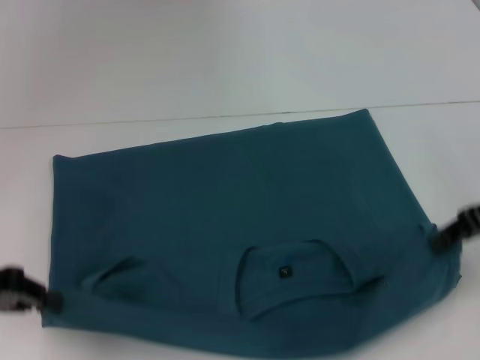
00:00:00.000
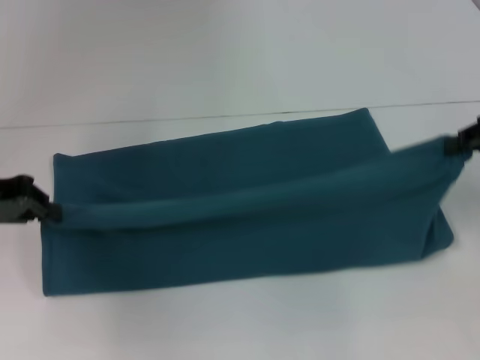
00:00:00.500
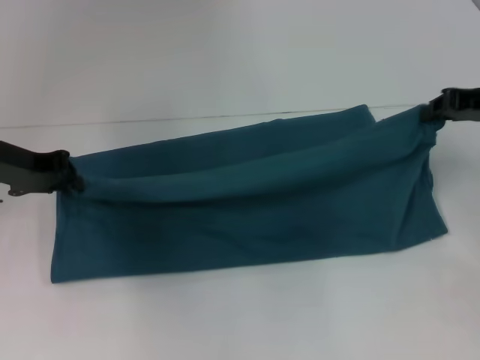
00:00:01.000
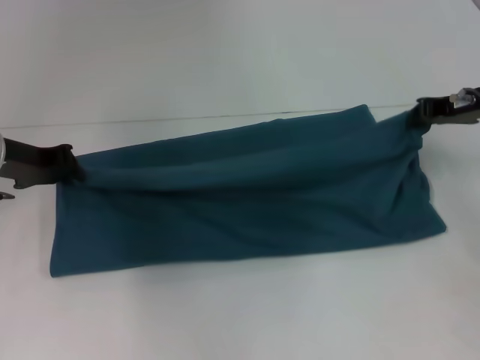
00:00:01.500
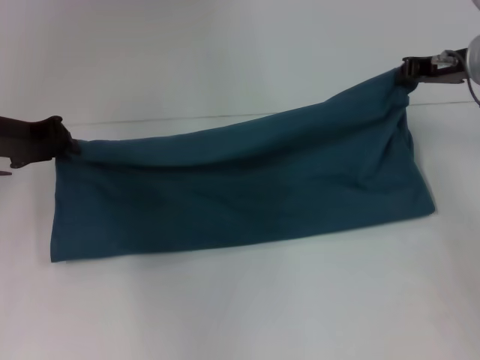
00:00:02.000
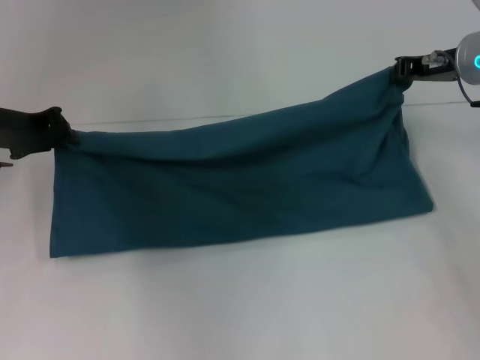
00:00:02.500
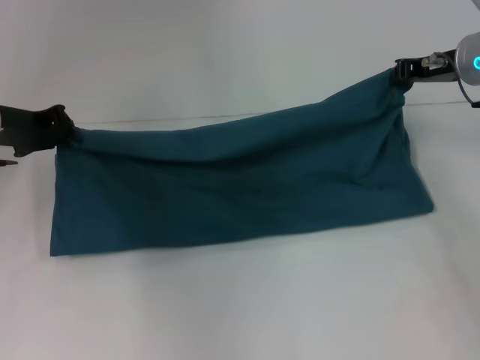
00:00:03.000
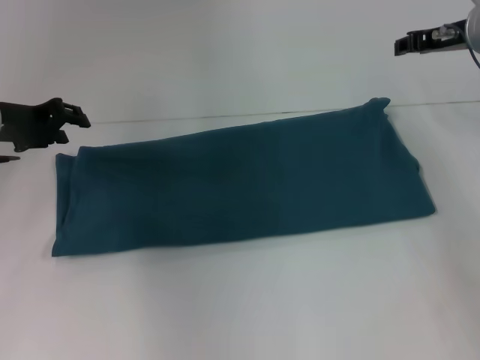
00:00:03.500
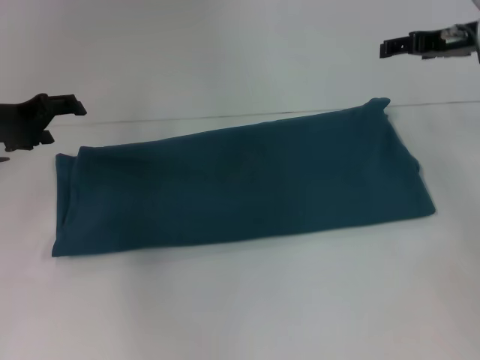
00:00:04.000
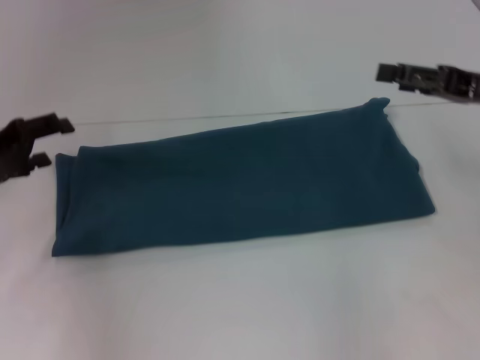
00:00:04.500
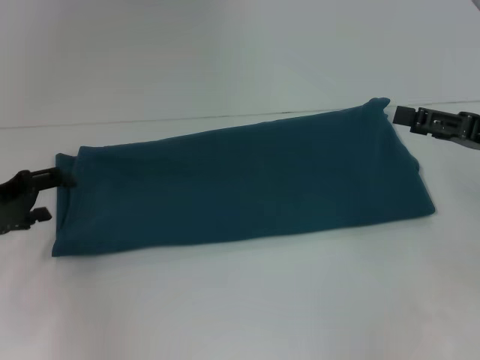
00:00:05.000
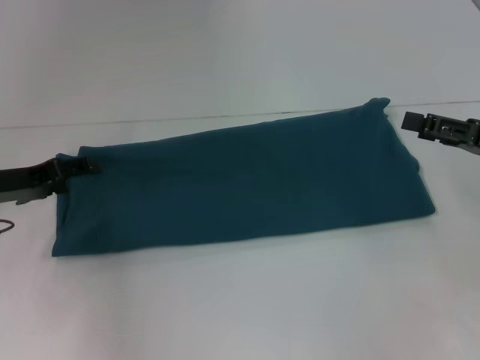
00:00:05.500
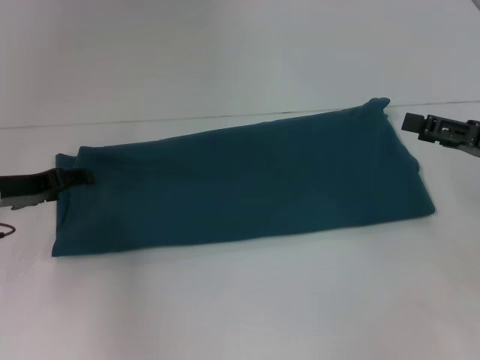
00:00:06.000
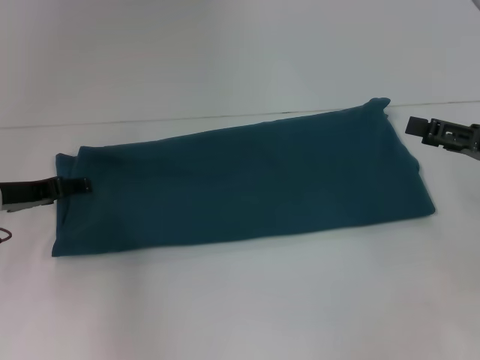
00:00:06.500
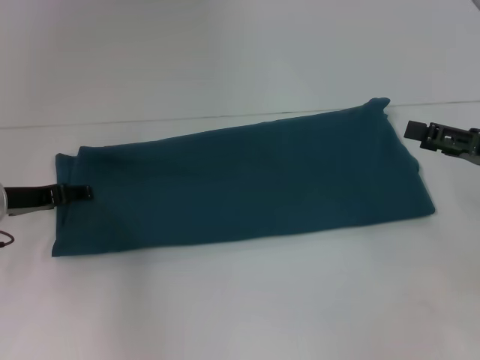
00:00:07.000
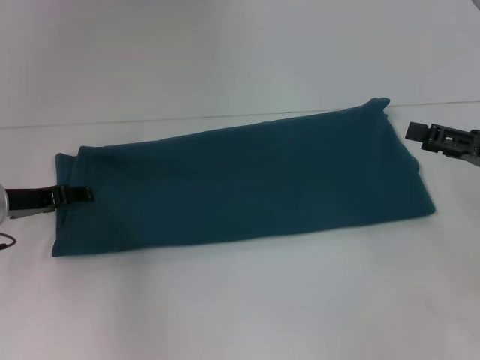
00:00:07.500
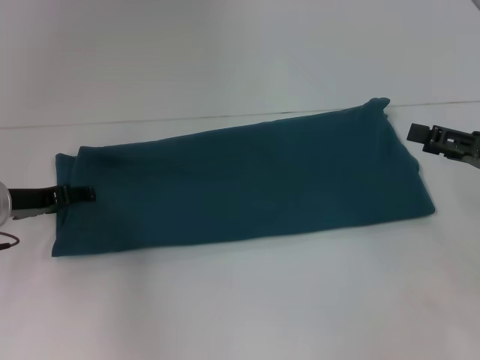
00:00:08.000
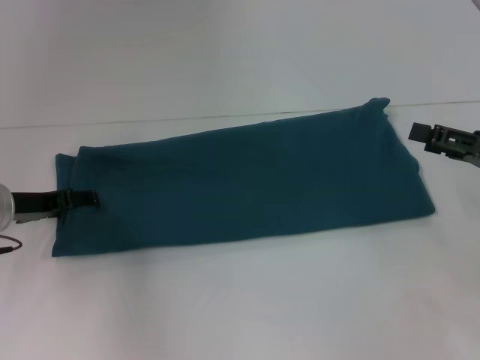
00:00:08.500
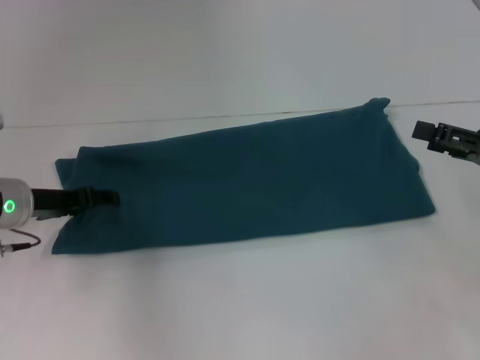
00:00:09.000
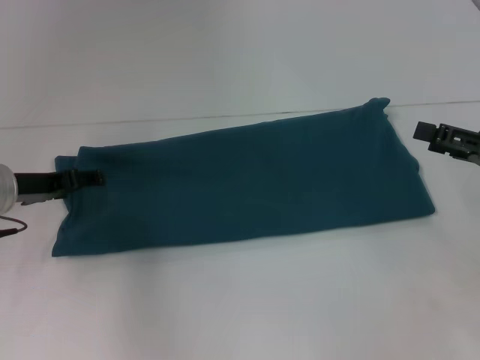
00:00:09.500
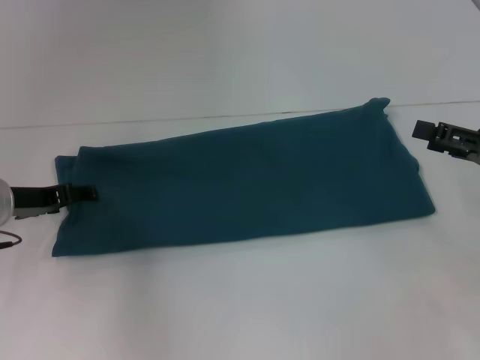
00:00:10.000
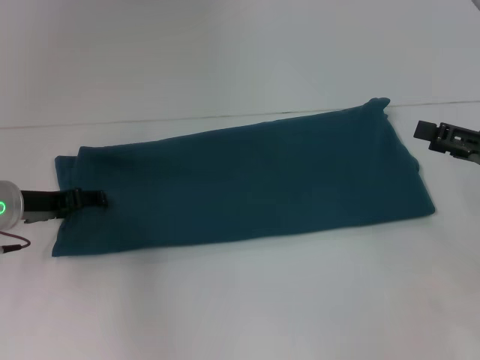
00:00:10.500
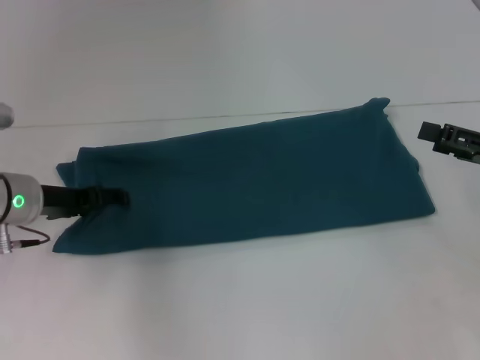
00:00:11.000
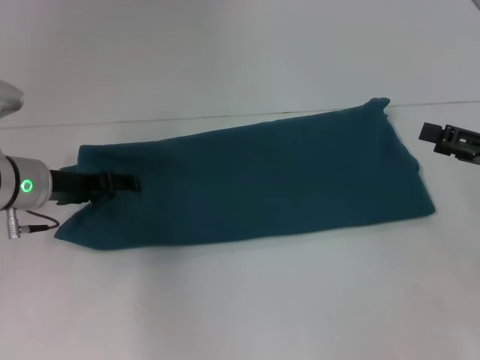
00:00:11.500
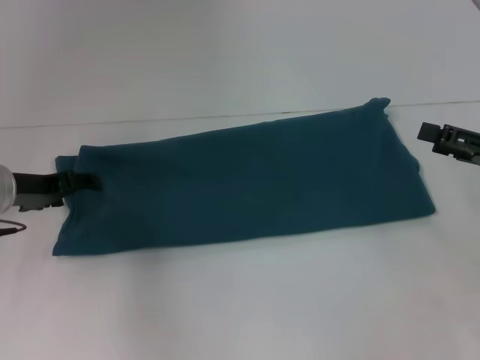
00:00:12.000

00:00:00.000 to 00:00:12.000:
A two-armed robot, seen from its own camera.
Step, 00:00:00.000 to 00:00:03.500: Fold the clothes to the right.
00:00:00.000 to 00:00:02.000: Both grippers move forward, some 10 cm.
00:00:02.000 to 00:00:04.000: The left gripper opens up; the right gripper opens.
00:00:04.000 to 00:00:06.000: The left gripper moves downward, approximately 5 cm. The right gripper heads backward, downward and to the right, covering roughly 15 cm.
00:00:06.000 to 00:00:12.000: There are only small adjustments of the grippers.

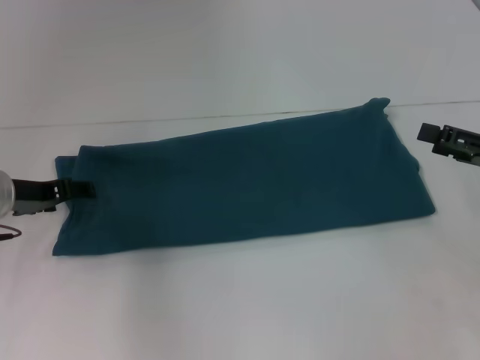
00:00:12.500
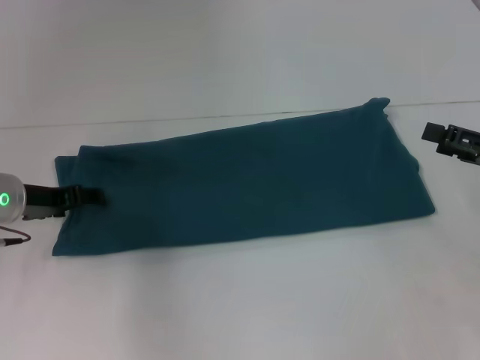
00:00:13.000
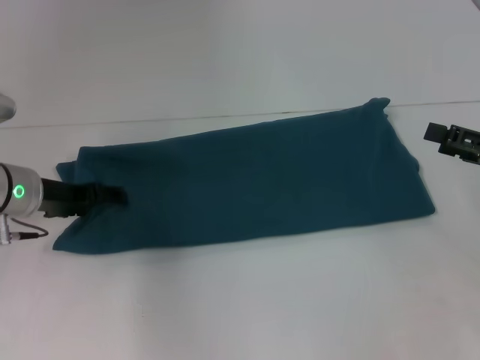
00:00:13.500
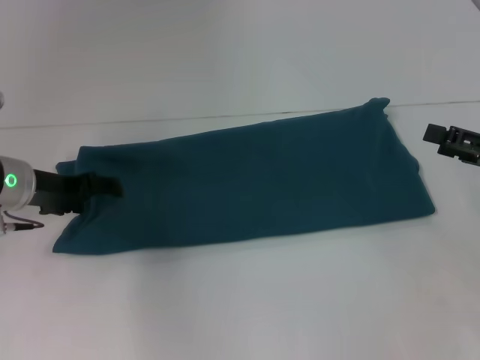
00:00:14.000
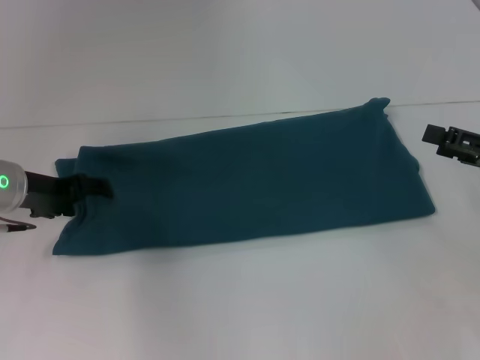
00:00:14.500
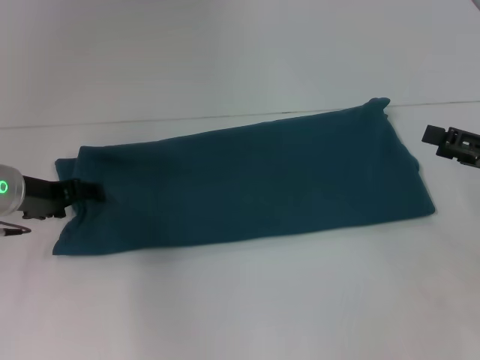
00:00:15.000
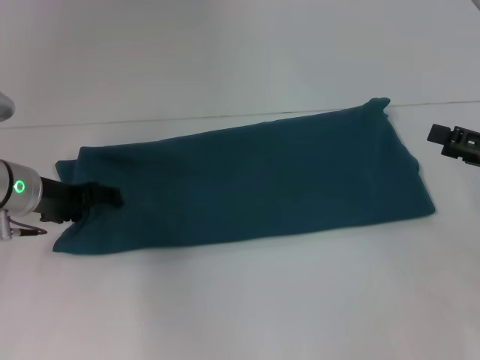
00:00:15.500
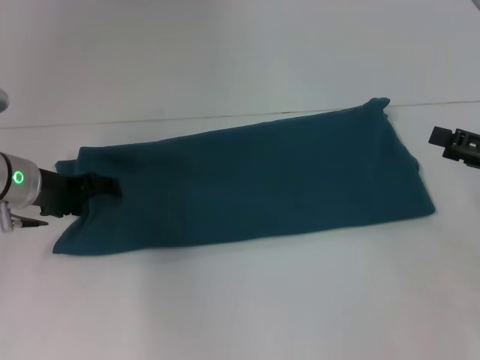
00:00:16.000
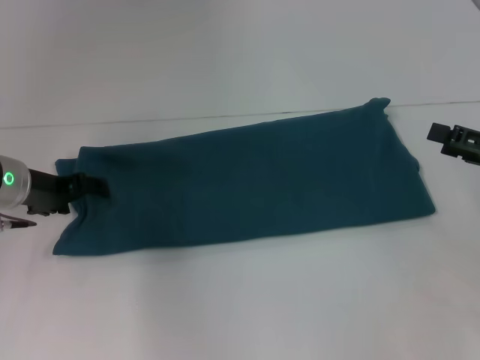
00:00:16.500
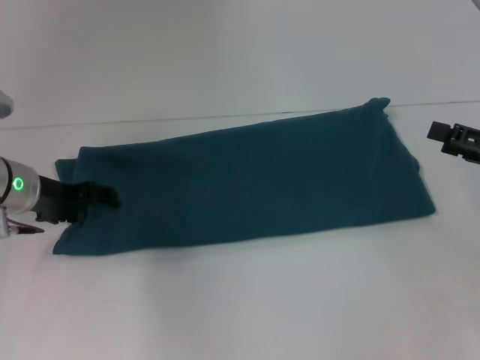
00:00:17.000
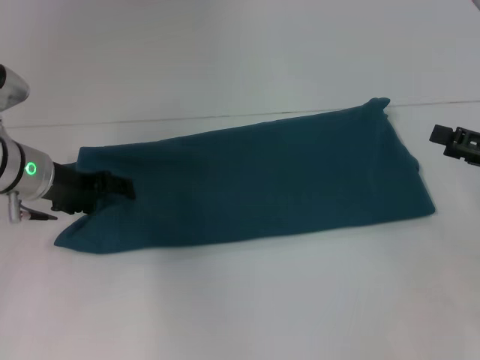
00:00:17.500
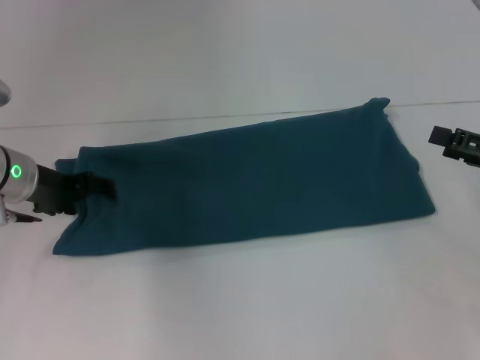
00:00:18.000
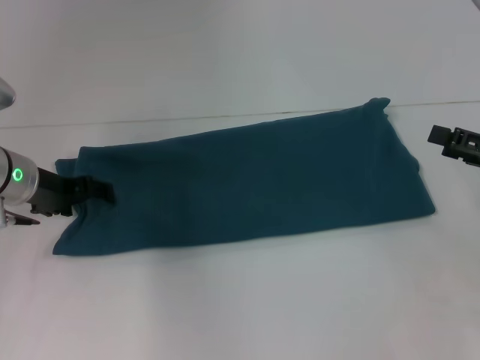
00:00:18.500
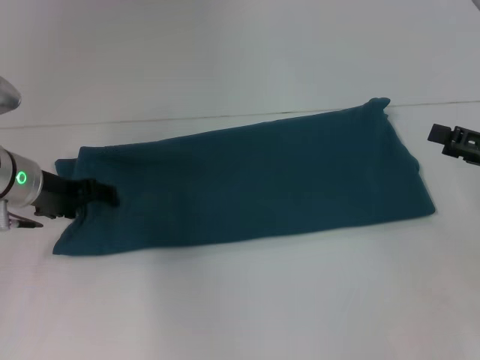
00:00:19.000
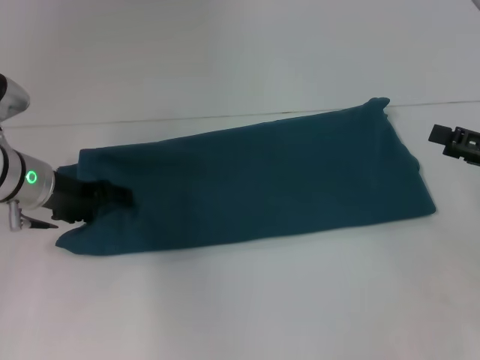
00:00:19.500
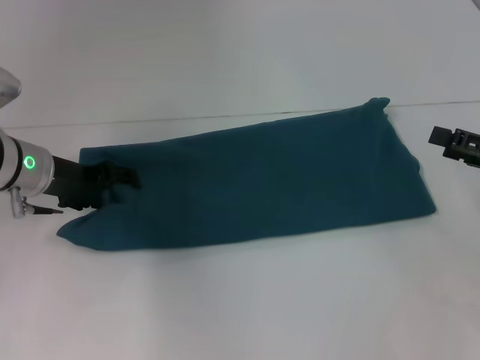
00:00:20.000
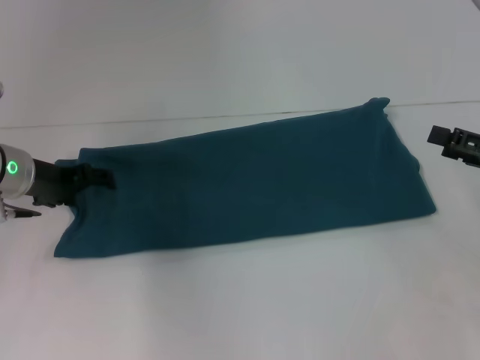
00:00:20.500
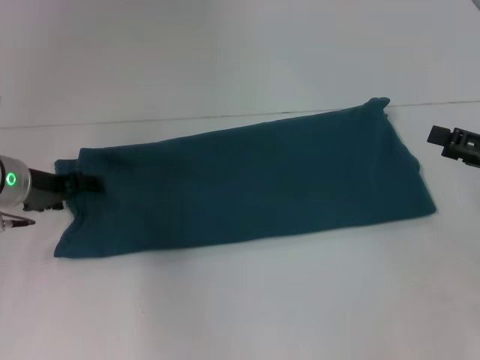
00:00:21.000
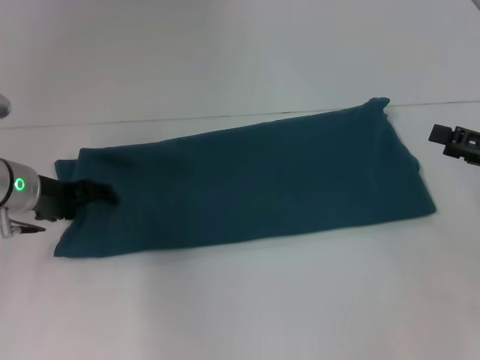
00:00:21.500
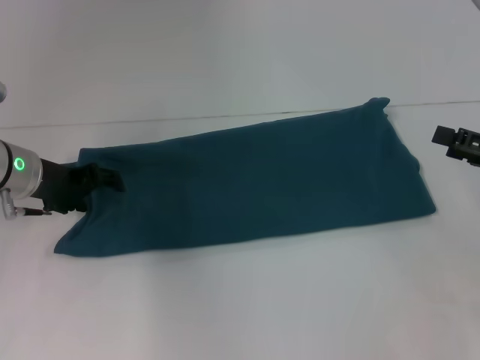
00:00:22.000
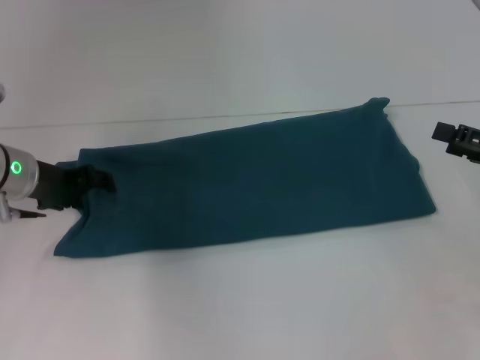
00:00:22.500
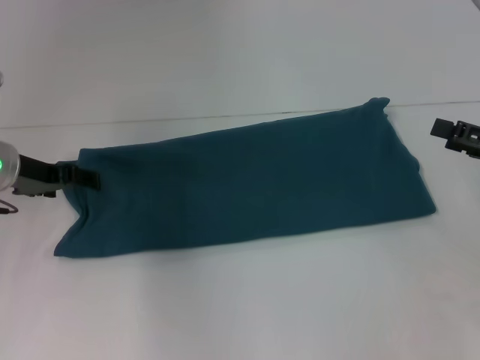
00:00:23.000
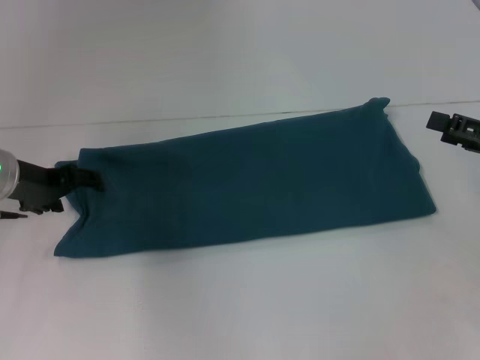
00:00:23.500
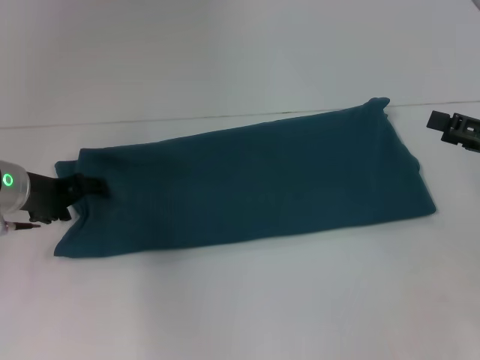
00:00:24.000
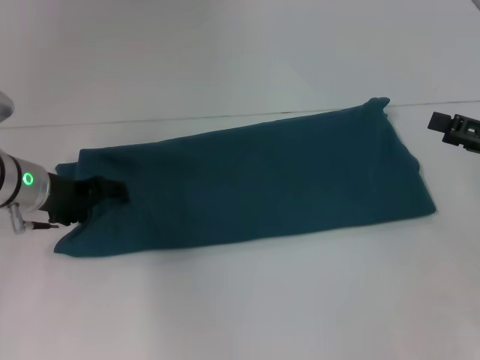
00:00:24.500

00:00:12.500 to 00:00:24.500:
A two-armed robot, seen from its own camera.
00:00:12.500 to 00:00:24.500: The grippers stay close to where they were, moving slightly.

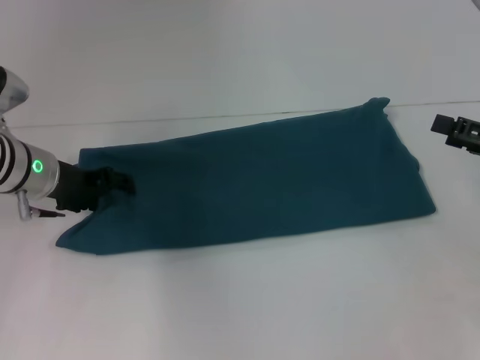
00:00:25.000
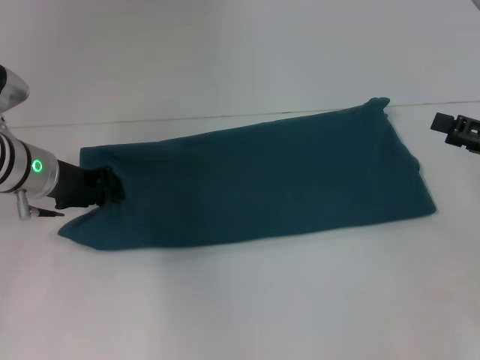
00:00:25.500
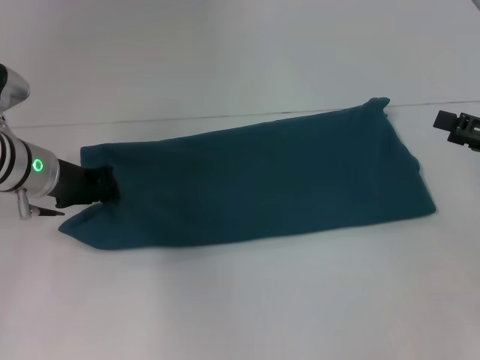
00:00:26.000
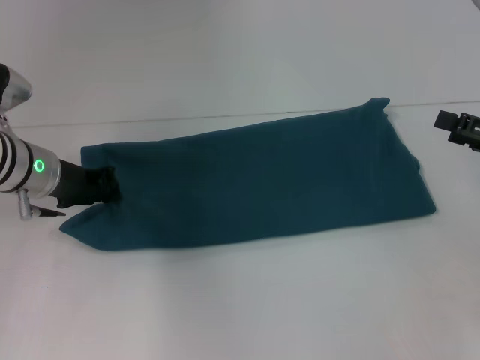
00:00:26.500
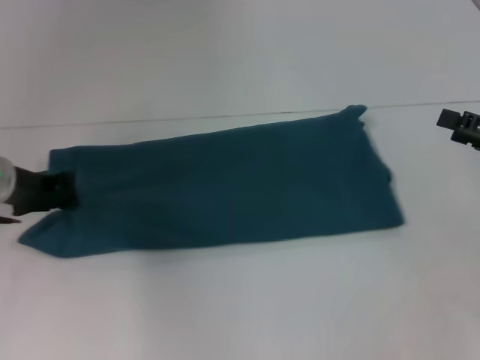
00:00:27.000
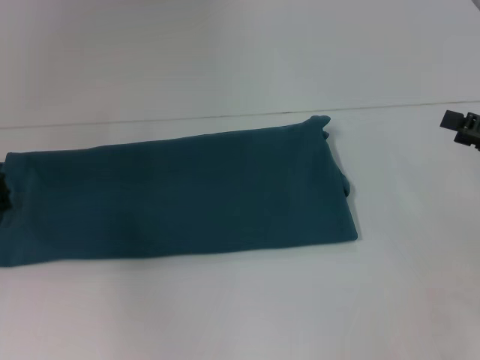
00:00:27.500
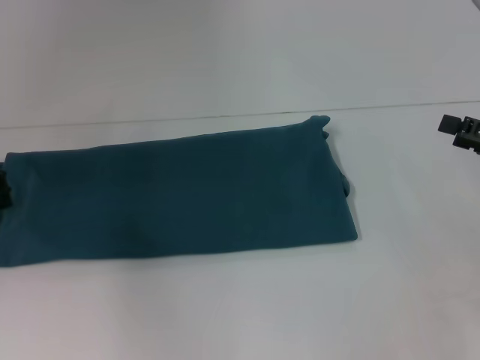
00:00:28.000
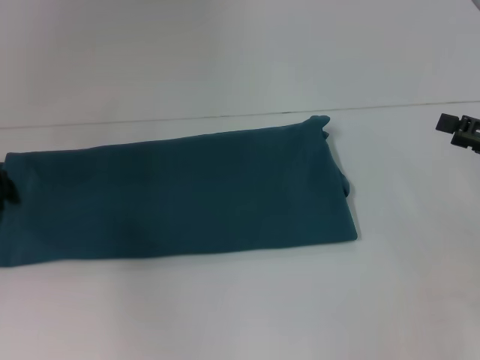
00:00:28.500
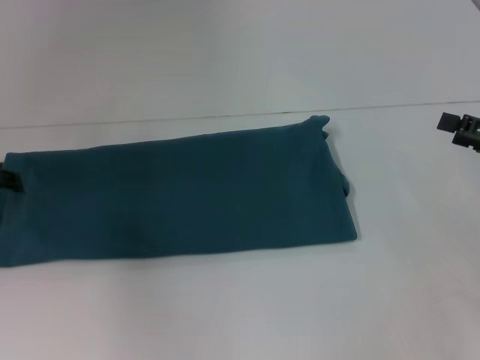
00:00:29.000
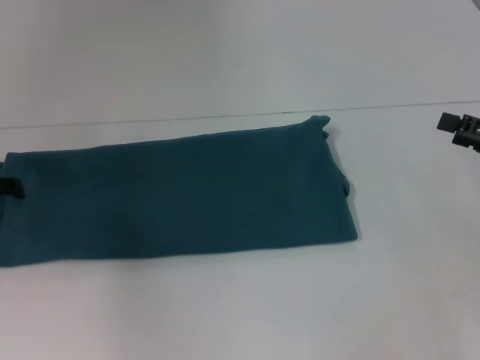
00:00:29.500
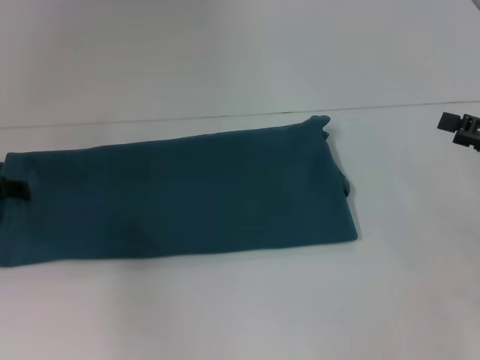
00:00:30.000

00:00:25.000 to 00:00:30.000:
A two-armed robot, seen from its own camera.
00:00:25.000 to 00:00:27.500: The left gripper is displaced to the left by roughly 10 cm, and closes.
